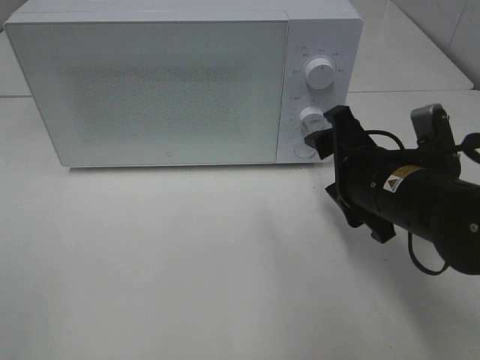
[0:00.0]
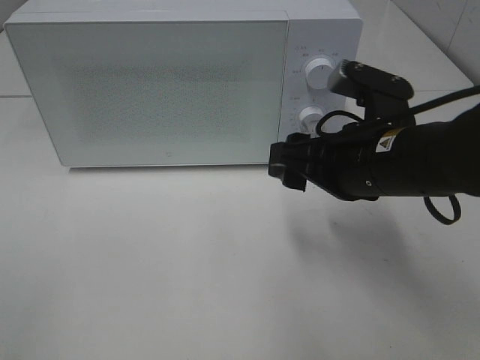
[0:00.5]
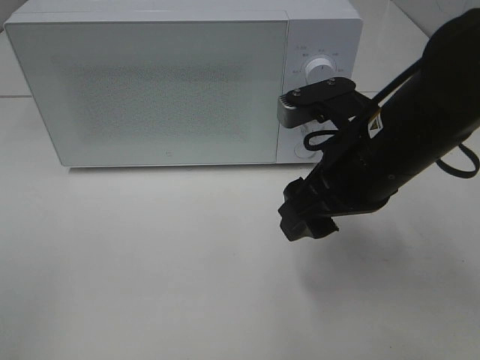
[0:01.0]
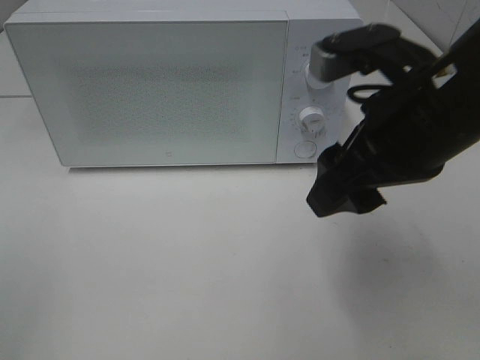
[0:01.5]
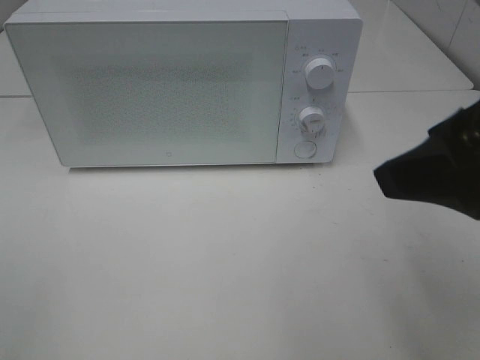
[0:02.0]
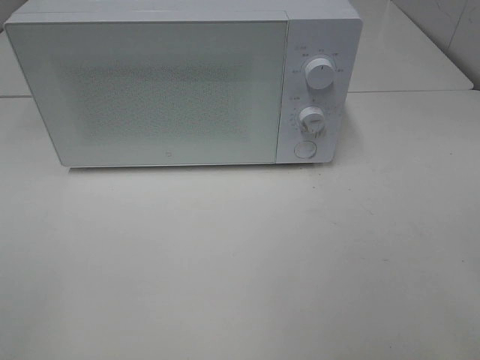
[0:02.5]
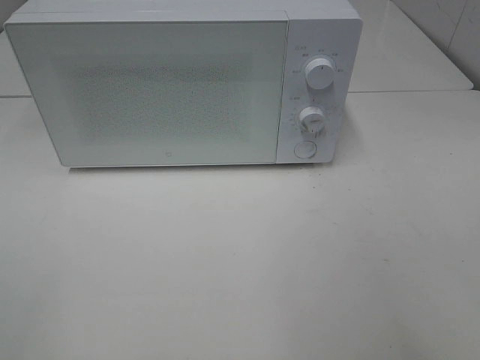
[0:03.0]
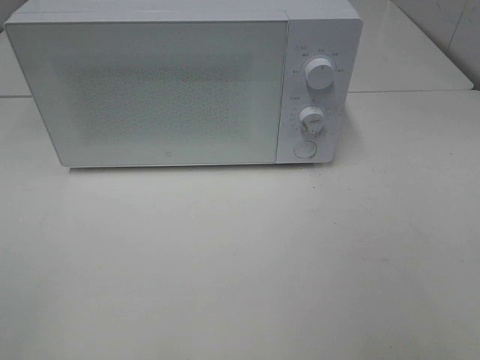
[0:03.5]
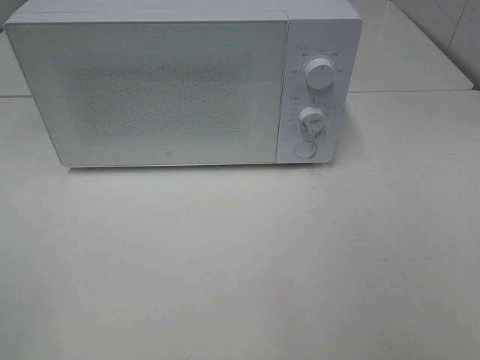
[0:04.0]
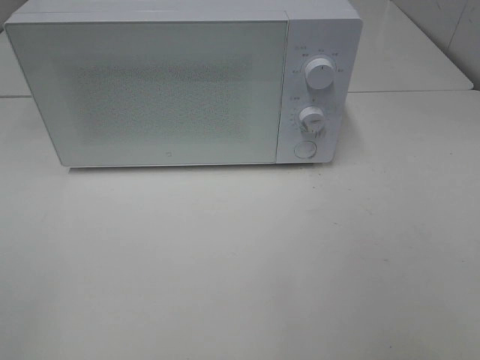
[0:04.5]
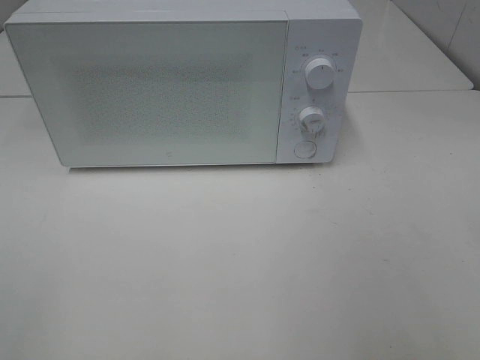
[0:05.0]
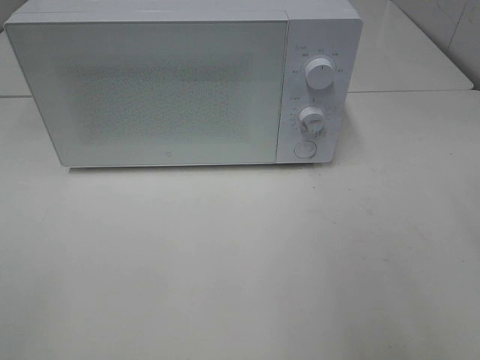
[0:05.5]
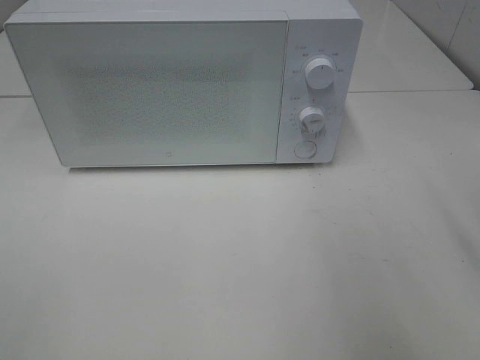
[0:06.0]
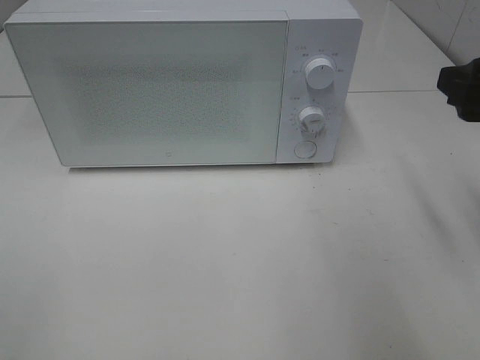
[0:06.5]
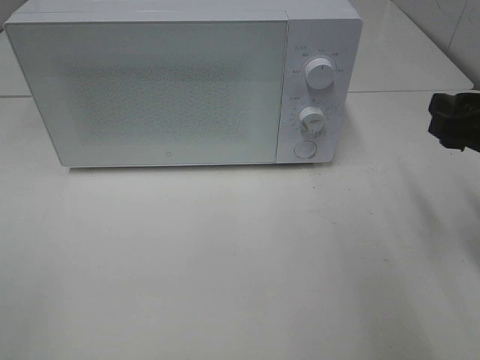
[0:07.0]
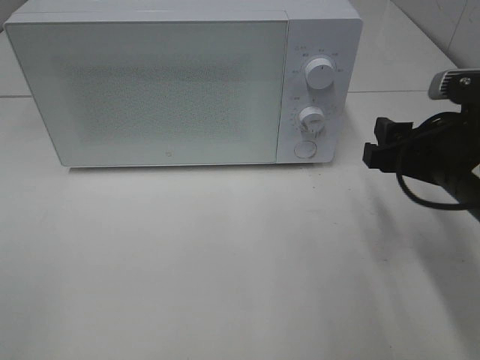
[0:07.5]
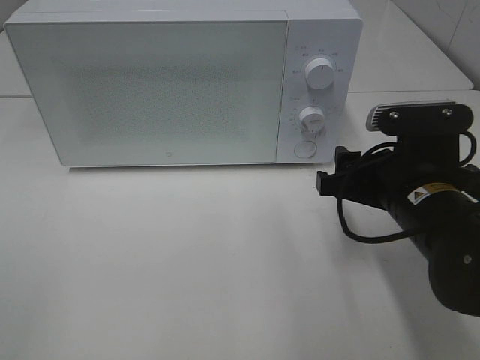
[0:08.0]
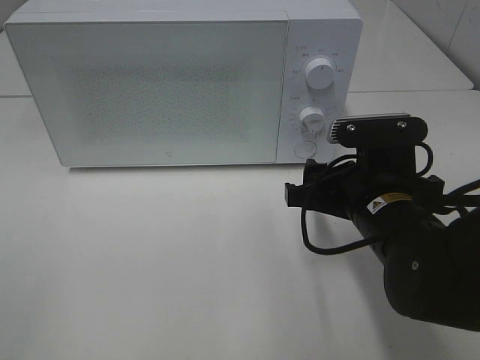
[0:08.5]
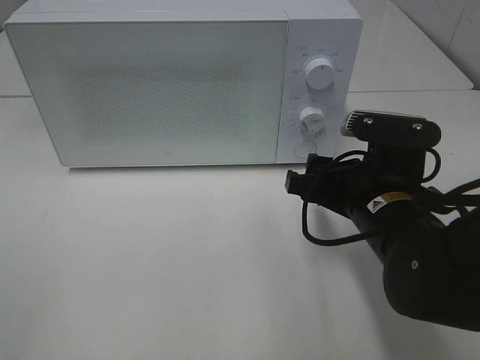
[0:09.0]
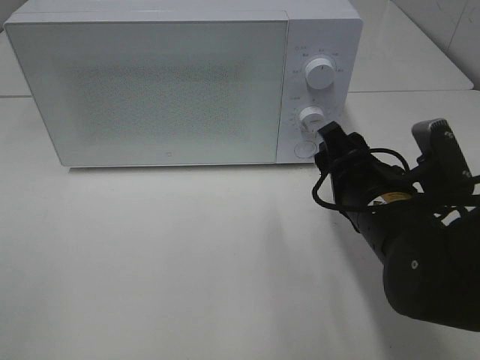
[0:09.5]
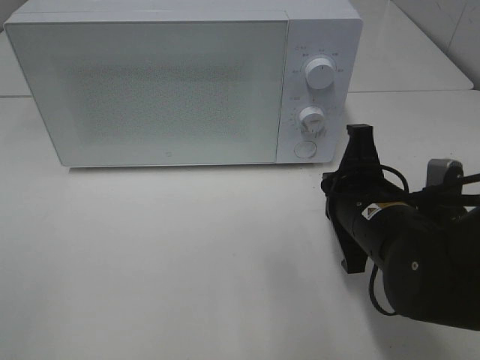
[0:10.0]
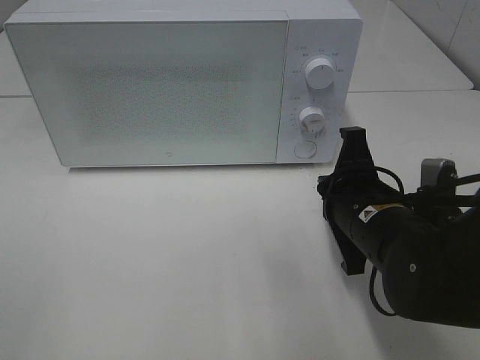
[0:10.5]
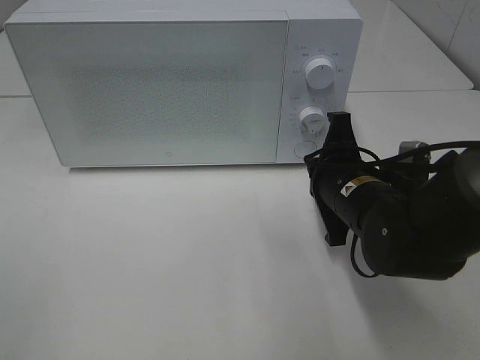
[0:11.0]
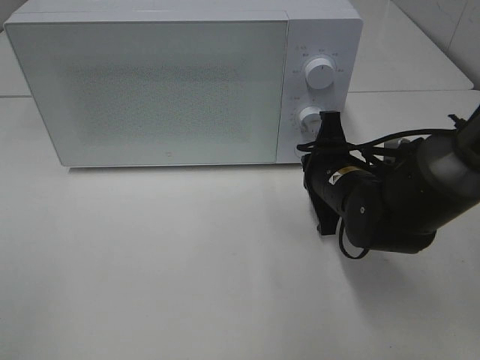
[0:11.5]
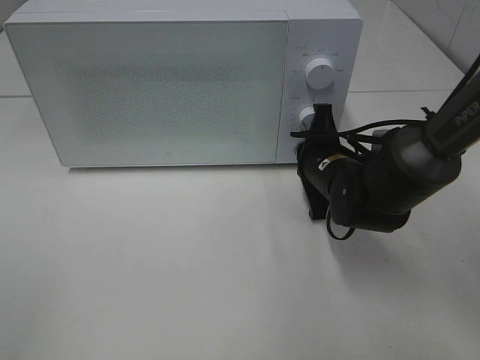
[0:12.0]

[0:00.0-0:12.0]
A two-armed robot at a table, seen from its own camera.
Task of the whole recording: Heat Sandwich.
0:00.0 to 0:02.0: The right gripper travels upward and backward by about 20 cm.
0:02.0 to 0:04.0: The right gripper shifts some 15 cm backward and to the right.
0:06.0 to 0:08.0: The right gripper shifts some 15 cm downward and to the left.
0:08.0 to 0:10.0: The right gripper closes up.
0:10.0 to 0:12.0: The right gripper heads forward, covering some 10 cm.

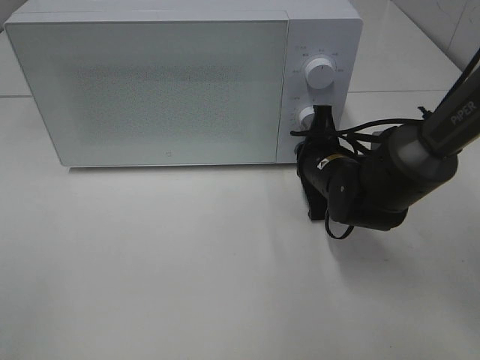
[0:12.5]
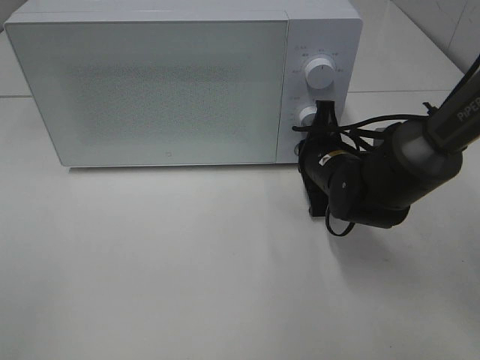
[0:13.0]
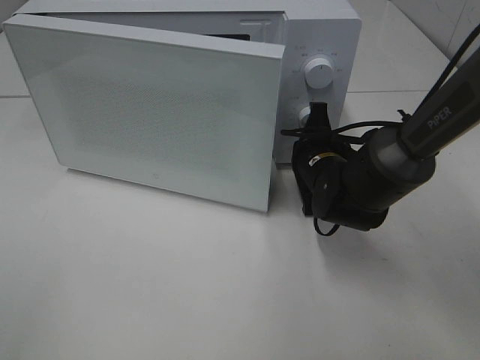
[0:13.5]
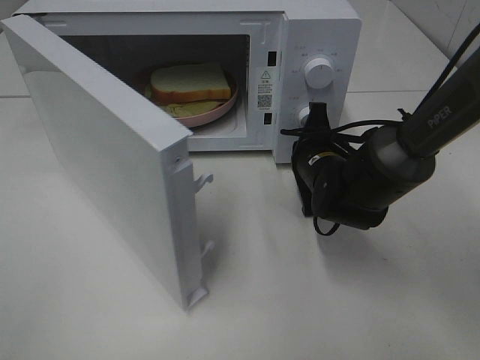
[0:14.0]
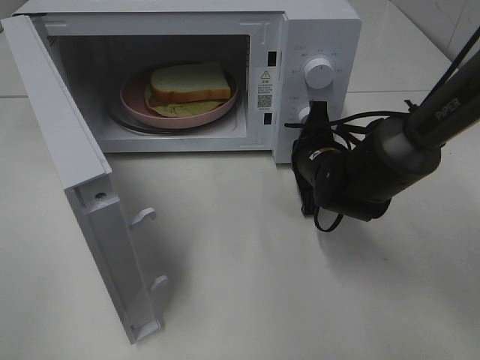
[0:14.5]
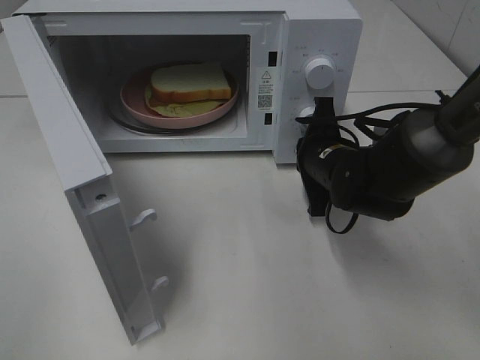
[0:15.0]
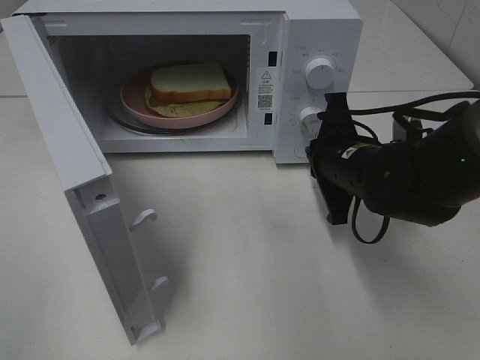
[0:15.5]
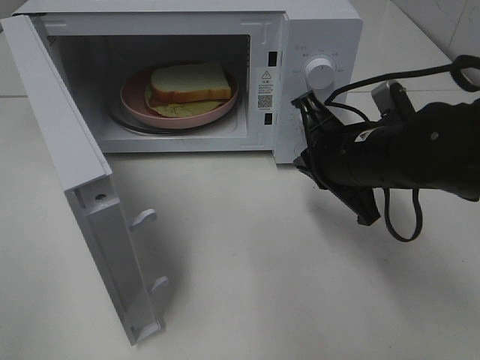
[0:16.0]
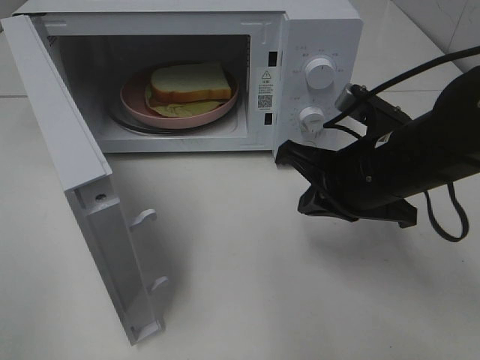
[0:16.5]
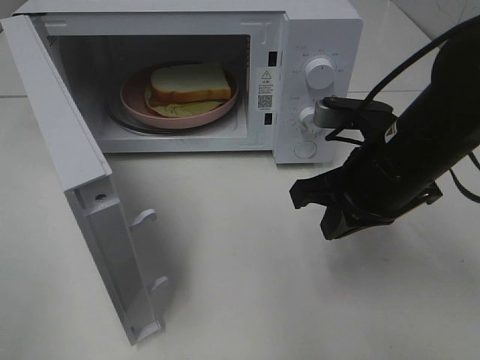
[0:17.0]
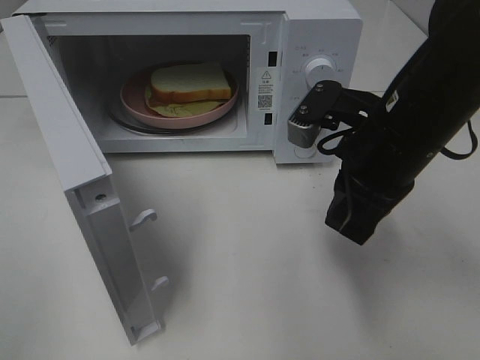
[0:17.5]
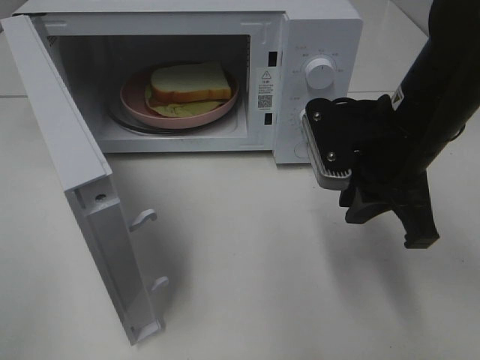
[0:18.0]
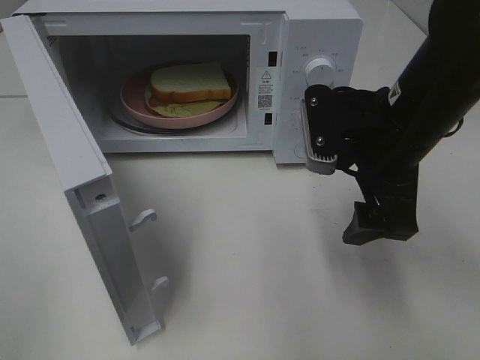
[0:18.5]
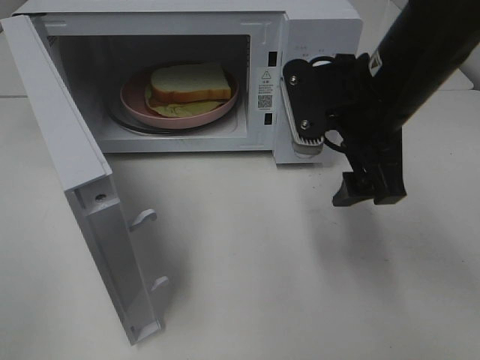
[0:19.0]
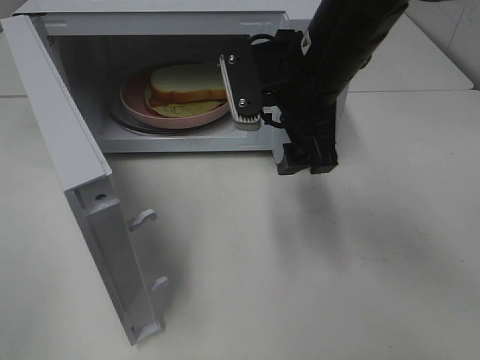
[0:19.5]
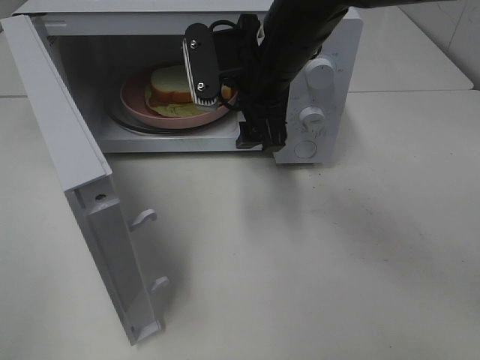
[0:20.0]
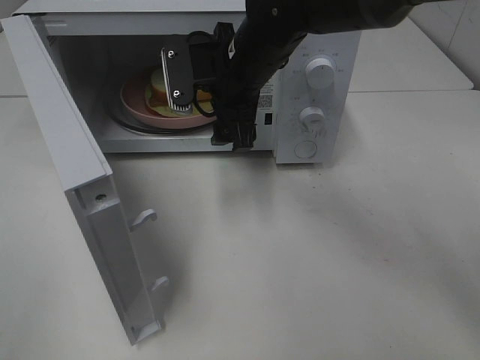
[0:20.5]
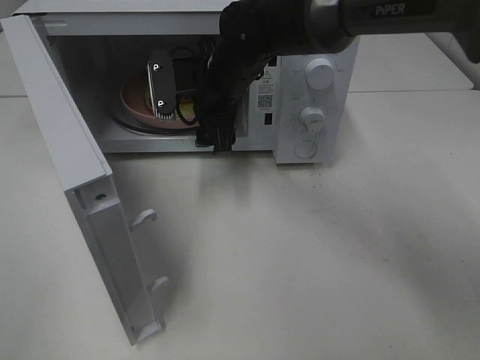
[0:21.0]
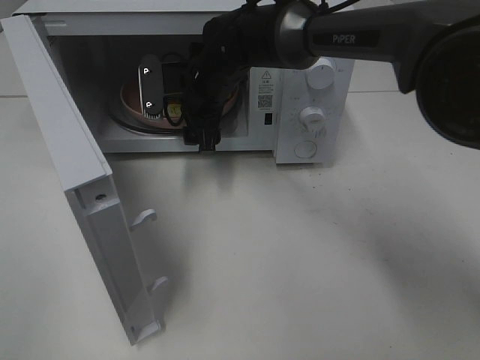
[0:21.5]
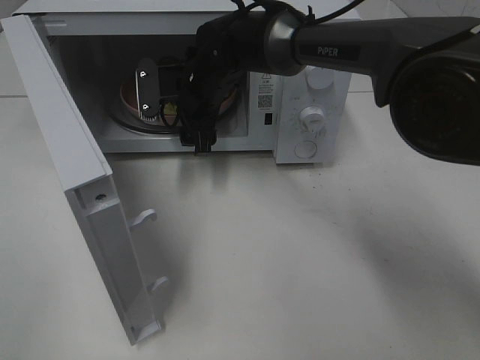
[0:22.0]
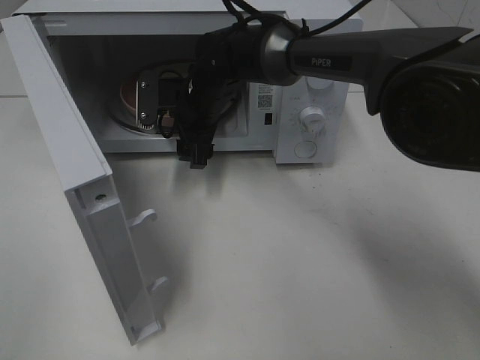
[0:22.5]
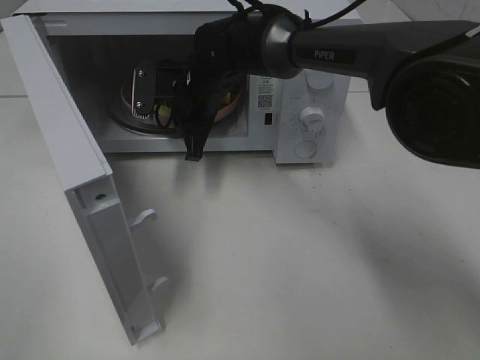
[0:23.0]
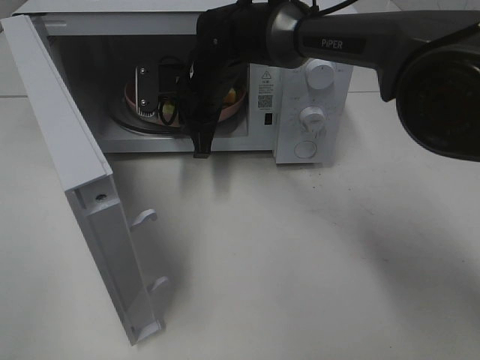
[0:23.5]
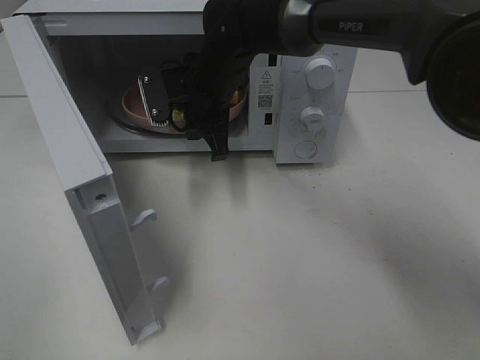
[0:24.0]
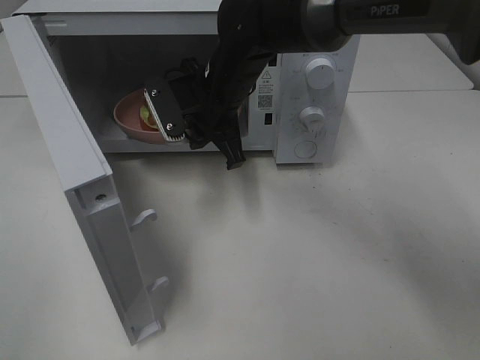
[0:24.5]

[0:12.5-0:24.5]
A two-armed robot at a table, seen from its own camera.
Task of the whole recording: Heat Sandwich.
Step, 0:12.5 to 0:15.0: Right hand: press the switch.
Step, 0:15.5 to 0:23.0: Right hand: grab the plate with the sandwich.
0:14.5 to 0:16.5: The right gripper is displaced backward and upward by approximately 15 cm.
0:16.5 to 0:18.5: The right gripper opens its fingers.
0:18.5 to 0:20.5: The right gripper goes roughly 20 cm to the left and forward.
0:20.5 to 0:22.5: The right gripper shifts roughly 10 cm downward and forward.
0:22.5 to 0:24.5: The right gripper moves some 5 cm, and closes.

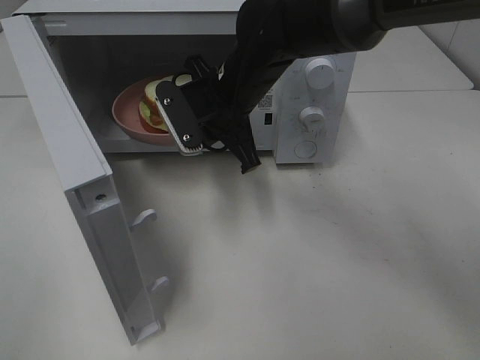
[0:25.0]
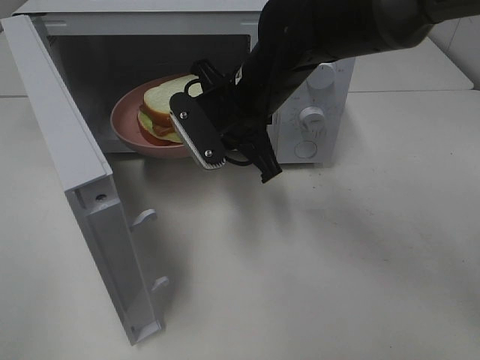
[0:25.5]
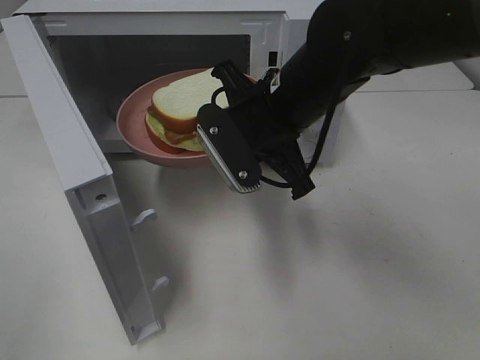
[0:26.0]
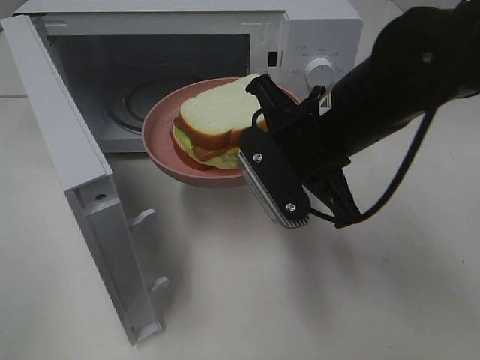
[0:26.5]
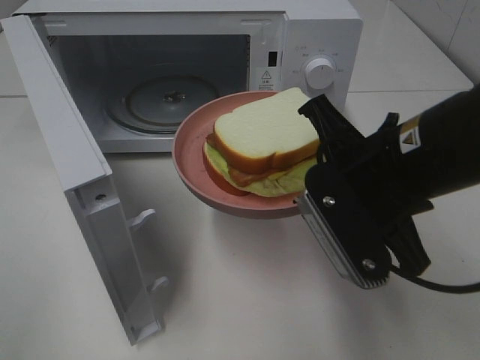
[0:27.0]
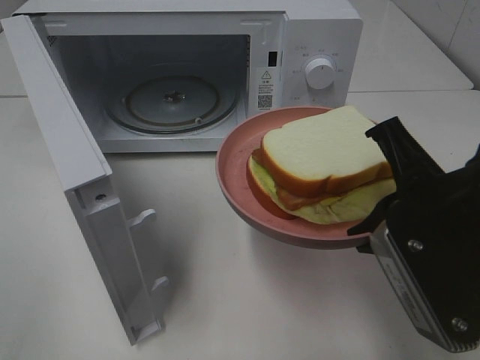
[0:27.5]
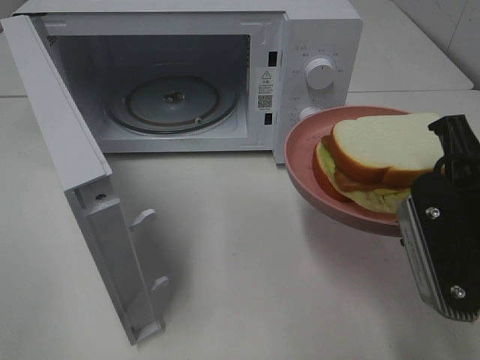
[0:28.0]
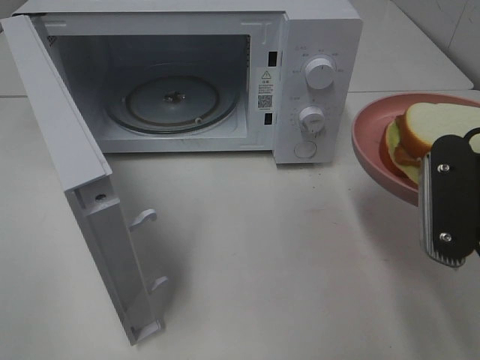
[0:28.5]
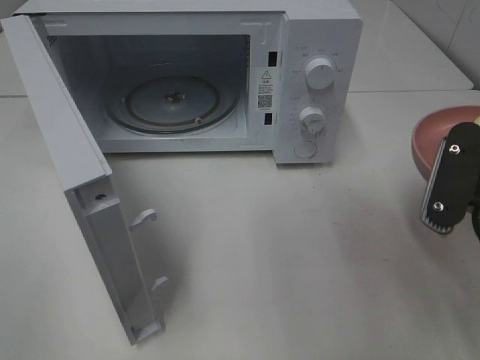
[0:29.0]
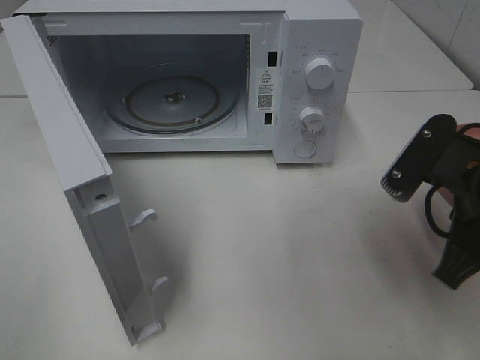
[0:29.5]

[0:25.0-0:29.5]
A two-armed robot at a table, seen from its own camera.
Task of the whole recording: Heat Sandwich.
0:25.0 to 0:27.0: The right gripper is displaced backward and to the right by approximately 20 cm.
0:27.0 to 0:29.5: The right gripper moves to the right, some 10 cm.
